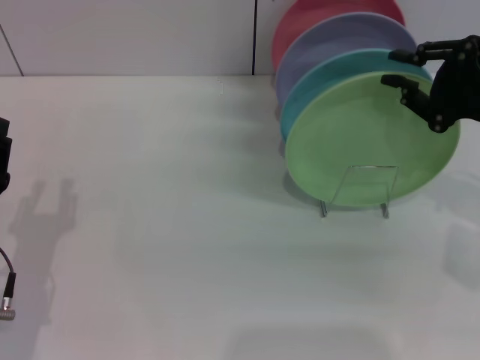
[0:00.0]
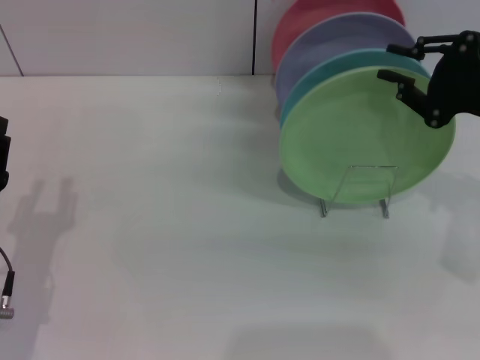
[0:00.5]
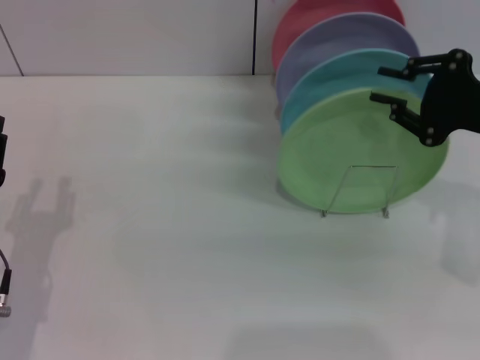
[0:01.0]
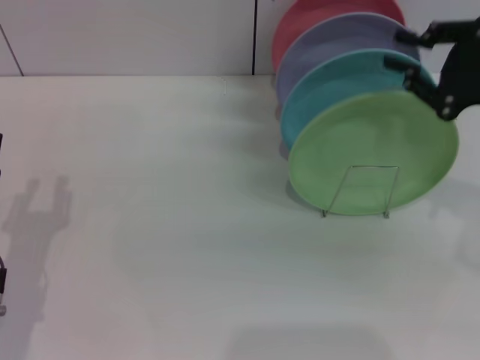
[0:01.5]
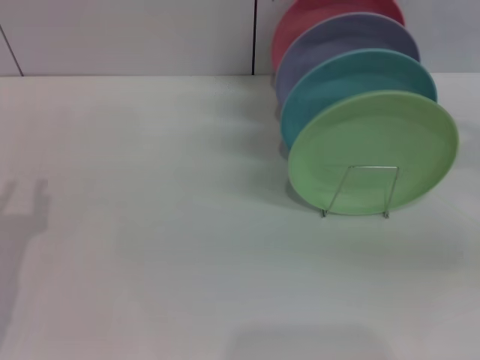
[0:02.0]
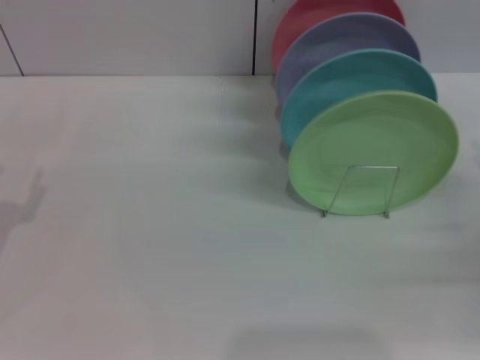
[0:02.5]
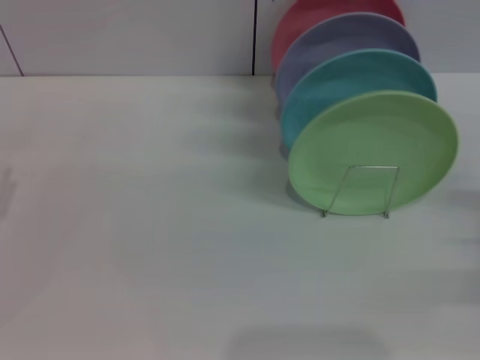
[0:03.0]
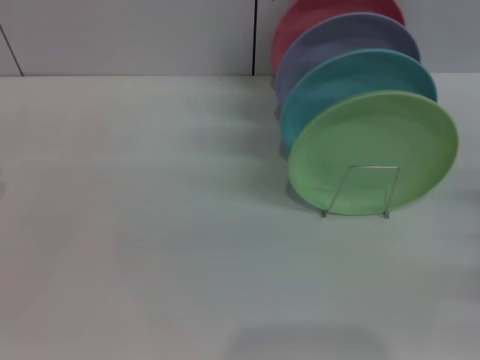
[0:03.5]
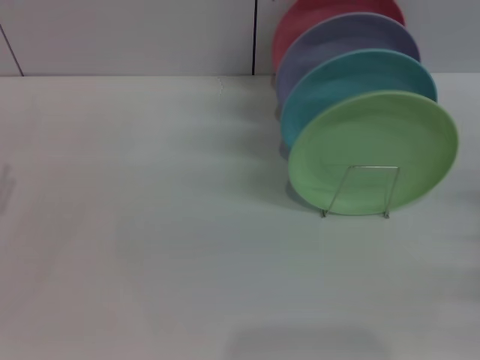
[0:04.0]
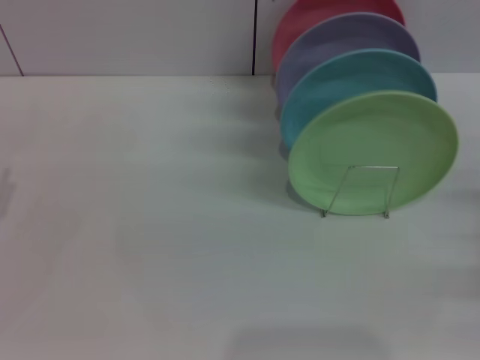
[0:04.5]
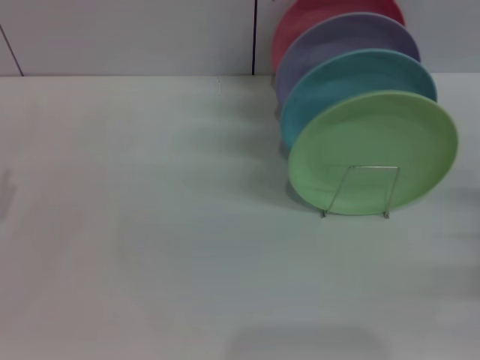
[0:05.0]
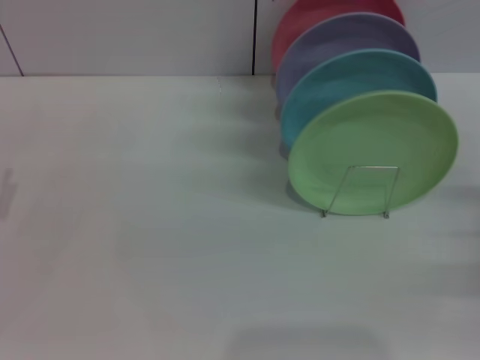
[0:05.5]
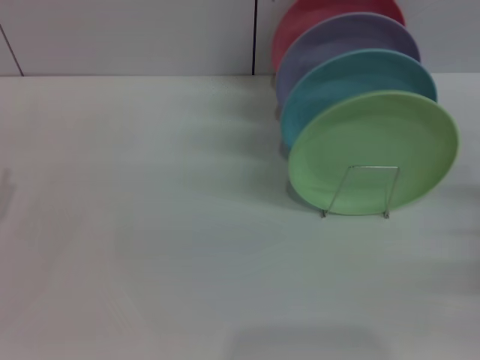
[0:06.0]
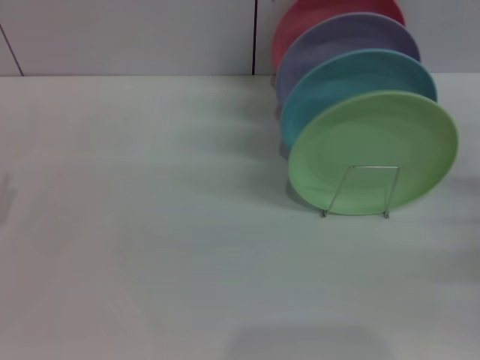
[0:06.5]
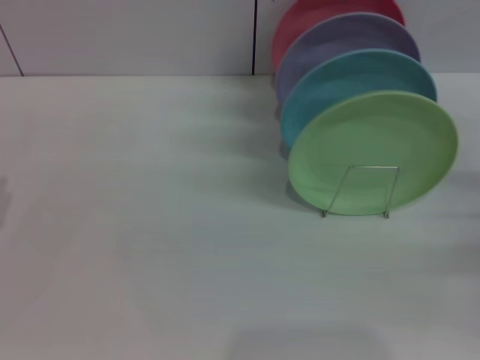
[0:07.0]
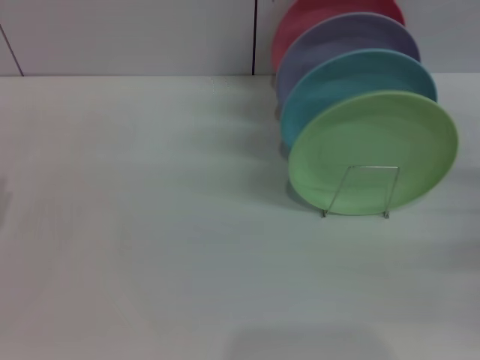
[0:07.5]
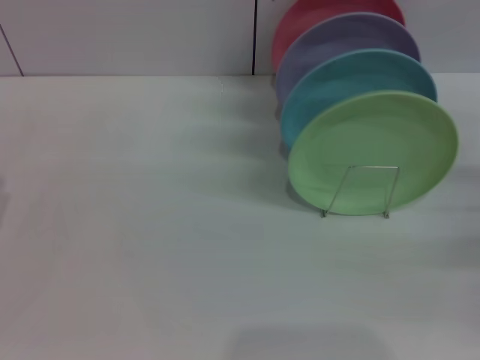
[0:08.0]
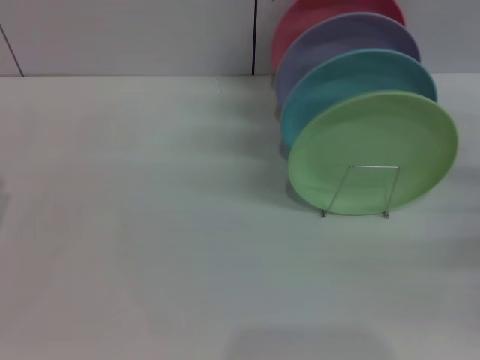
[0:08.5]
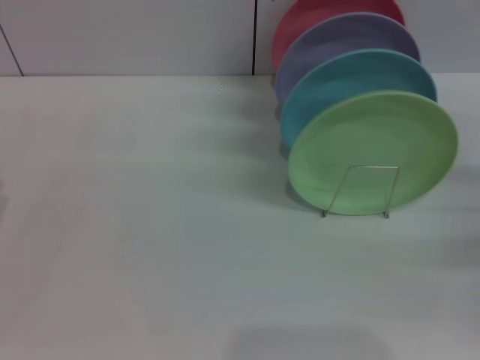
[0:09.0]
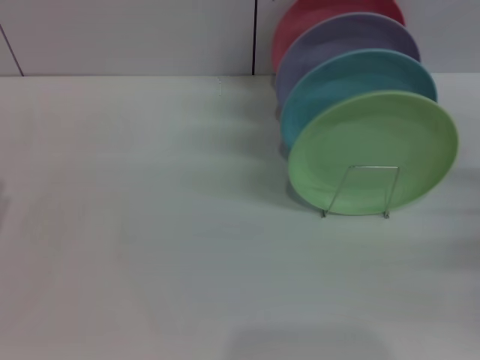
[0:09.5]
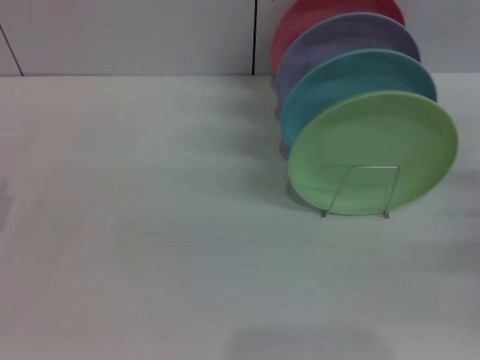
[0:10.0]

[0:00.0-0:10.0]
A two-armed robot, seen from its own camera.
Task of the whole recording: Grip the plate with one hand, pass it to the other, then set it on the shelf.
0:00.0 to 0:02.0: The right gripper shifts roughly 5 cm to the right.
0:02.0 to 0:04.0: The right gripper travels downward by some 15 cm, and opens its fingers.
0:04.0 to 0:06.0: Both grippers stay about where they are.
0:08.0 to 0:10.0: Both grippers stay put.
